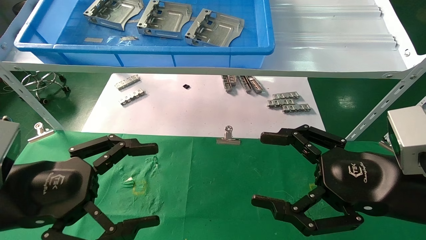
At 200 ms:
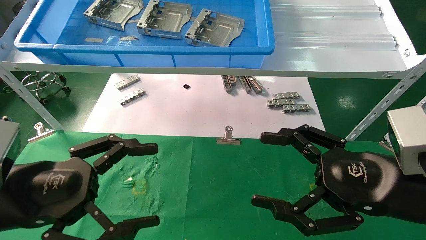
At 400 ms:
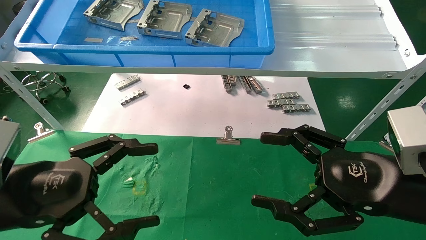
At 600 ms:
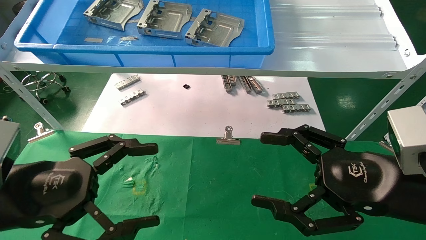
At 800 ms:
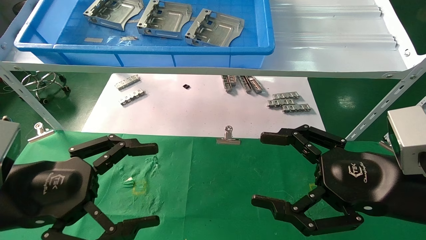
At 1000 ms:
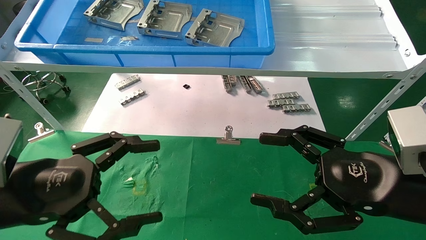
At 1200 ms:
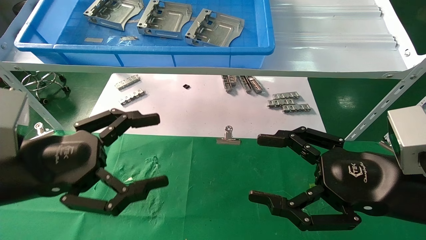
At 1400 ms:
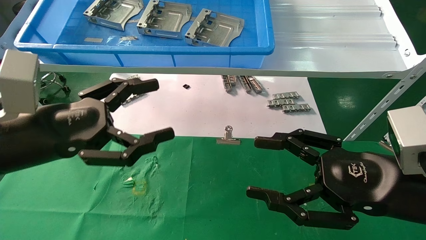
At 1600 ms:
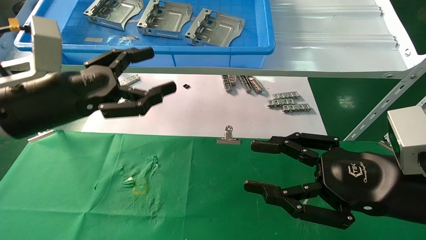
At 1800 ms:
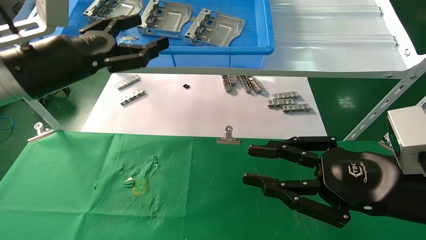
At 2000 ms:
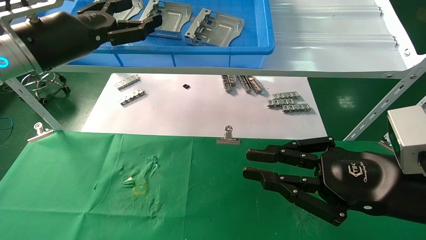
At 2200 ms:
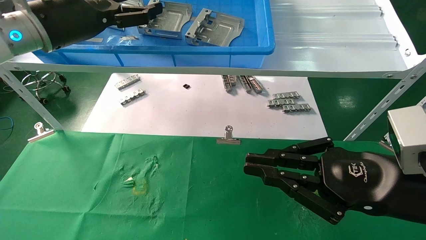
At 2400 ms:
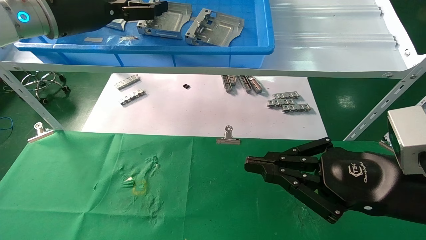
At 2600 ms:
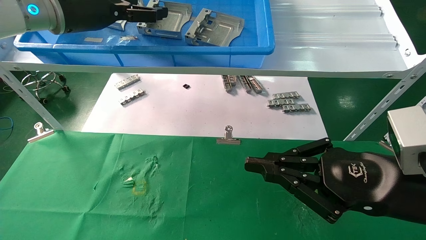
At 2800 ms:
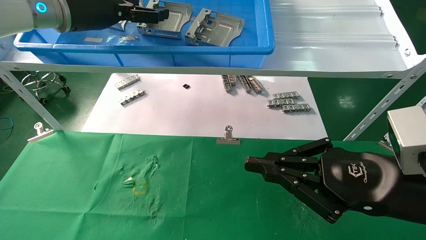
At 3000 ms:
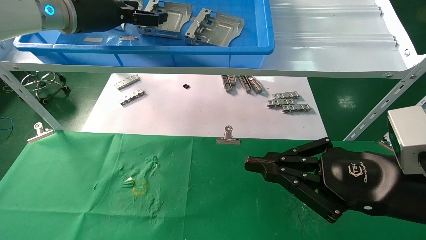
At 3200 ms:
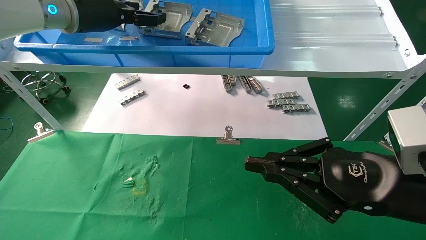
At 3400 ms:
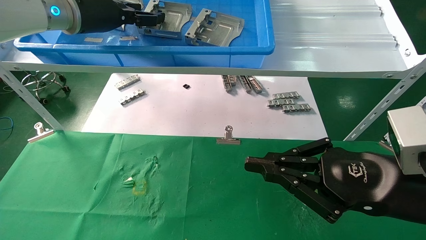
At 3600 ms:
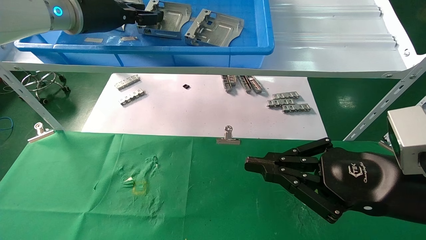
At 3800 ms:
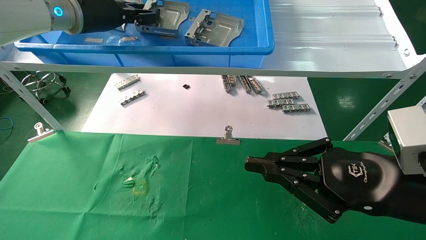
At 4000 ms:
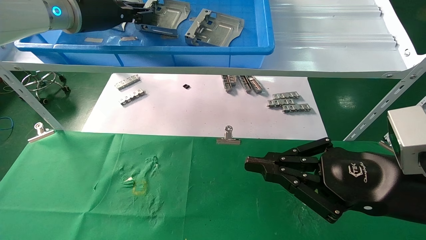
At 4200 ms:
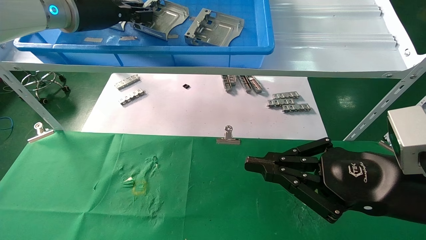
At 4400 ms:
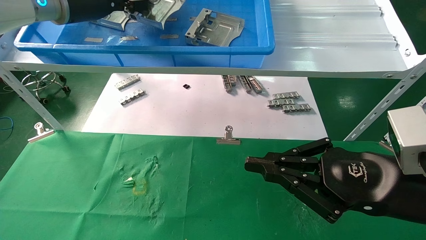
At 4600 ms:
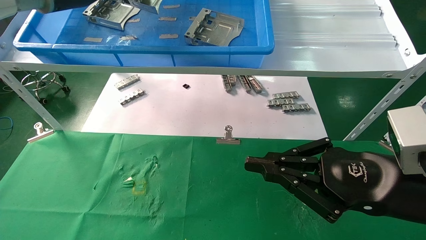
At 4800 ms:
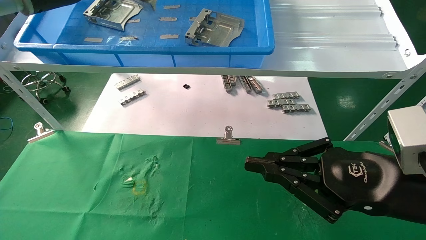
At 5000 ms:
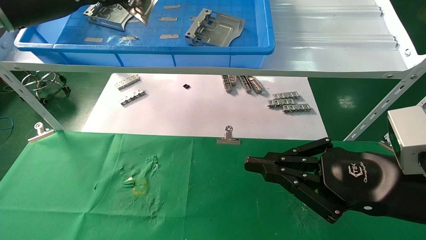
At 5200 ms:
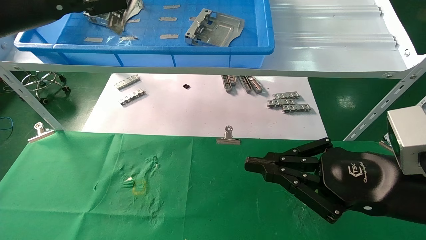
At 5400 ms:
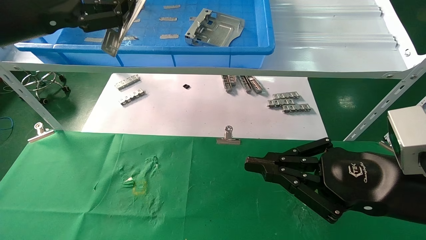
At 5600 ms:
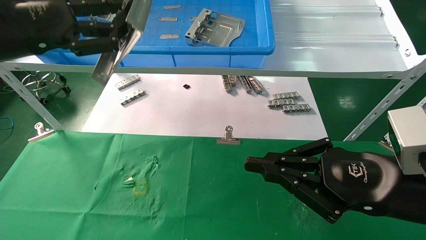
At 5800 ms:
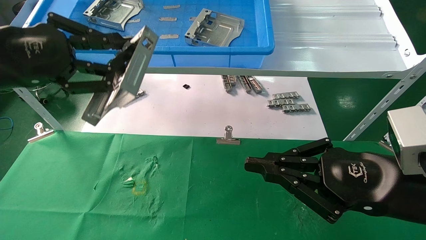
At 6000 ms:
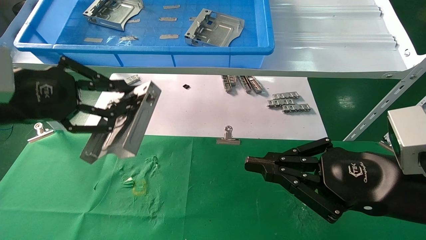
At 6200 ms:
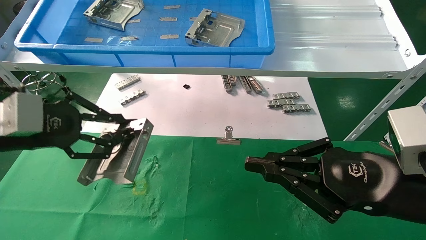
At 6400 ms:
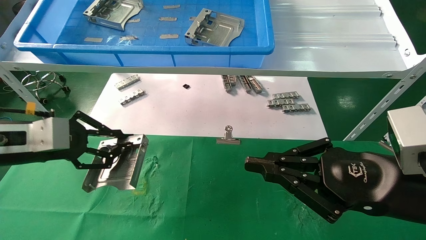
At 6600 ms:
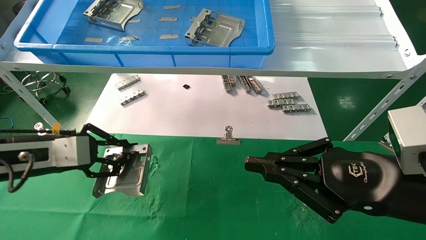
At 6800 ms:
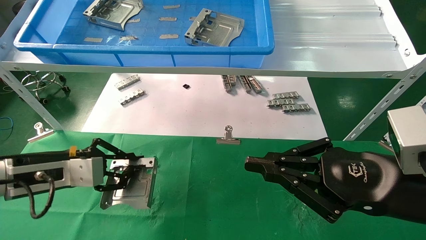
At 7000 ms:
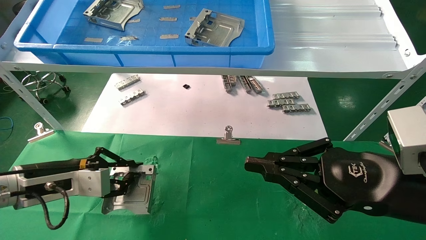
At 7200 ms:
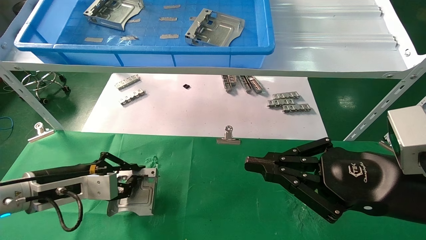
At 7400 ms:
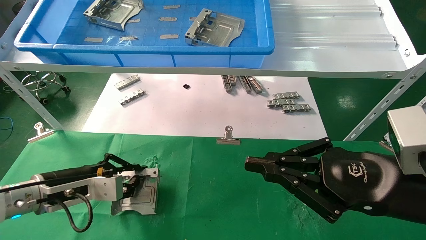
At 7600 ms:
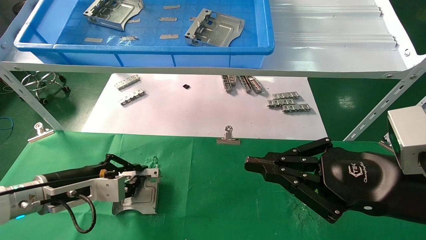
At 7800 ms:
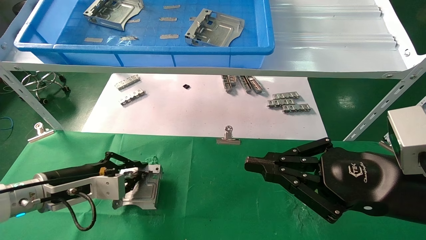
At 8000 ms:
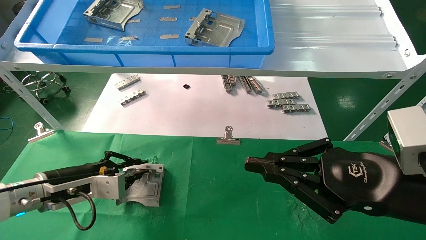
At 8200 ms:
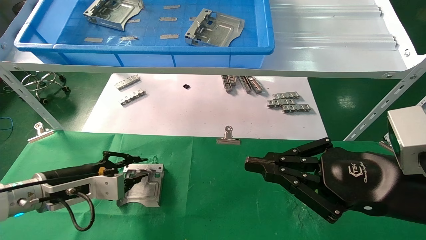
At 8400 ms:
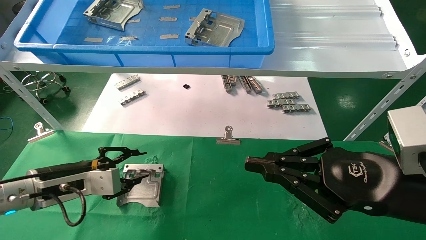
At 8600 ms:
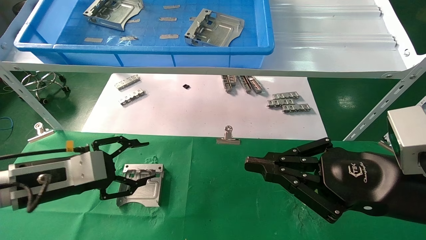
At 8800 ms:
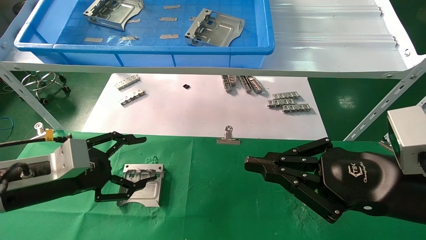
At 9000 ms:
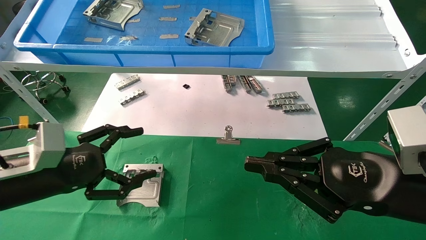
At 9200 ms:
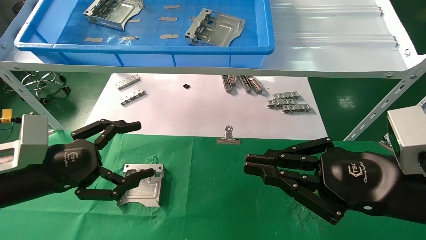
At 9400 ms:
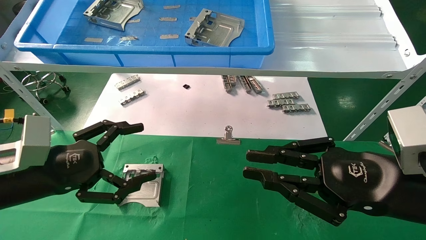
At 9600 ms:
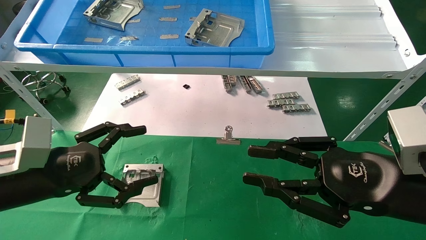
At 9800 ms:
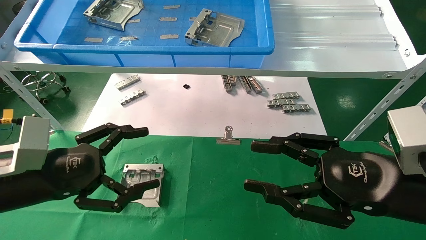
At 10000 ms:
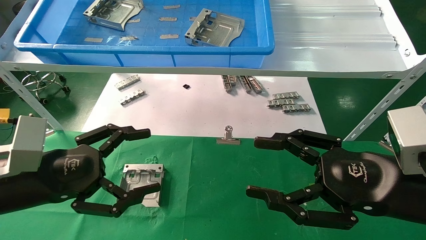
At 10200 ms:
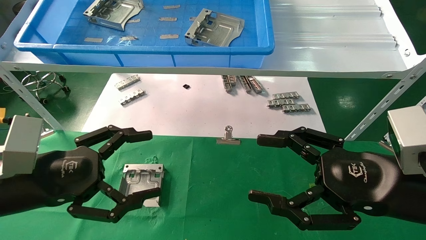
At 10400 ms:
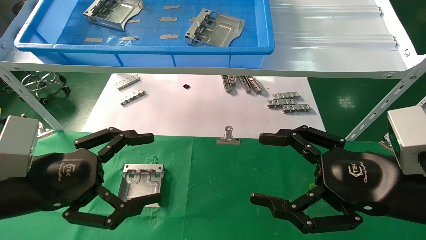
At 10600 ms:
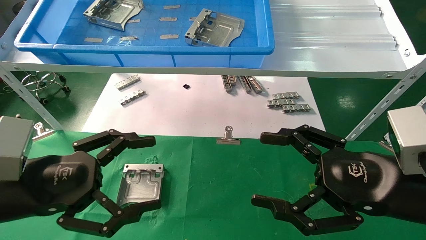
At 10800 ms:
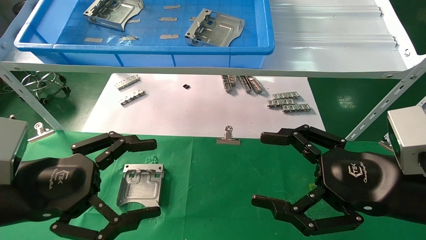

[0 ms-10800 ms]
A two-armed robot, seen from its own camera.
Task of the whole recording: use the mechanical arm to pick up the parts and place them on the table.
Step, 1400 ms to 4000 ms: Pick up the hard drive bracket from the feeding area.
Step, 4200 ms to 8000 ms: Place the hard drive bracket into the box.
0 ms to 1600 ms: The left gripper travels forward and upward by some 10 cm.
1600 ms to 3000 ms: The left gripper shifts some 20 cm upward and forward; the right gripper closes its fingers.
3000 ms to 4600 ms: The left gripper closes.
4600 ms to 6200 ms: The left gripper shifts about 20 cm downward and backward.
6200 ms to 7800 ms: The left gripper goes some 15 cm downward.
7800 ms to 9200 ms: The left gripper goes about 10 cm backward and upward, and opens its fingers.
9200 ms to 10800 ms: The left gripper shifts roughly 5 cm backward, while the right gripper opens.

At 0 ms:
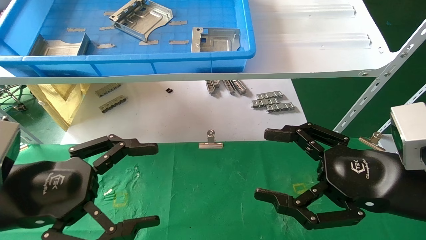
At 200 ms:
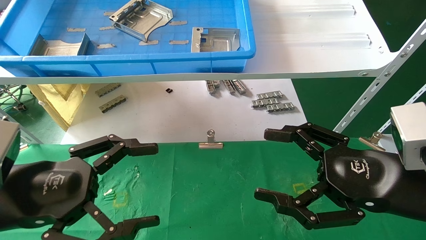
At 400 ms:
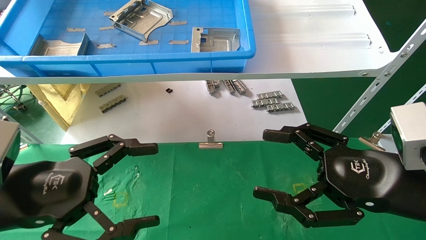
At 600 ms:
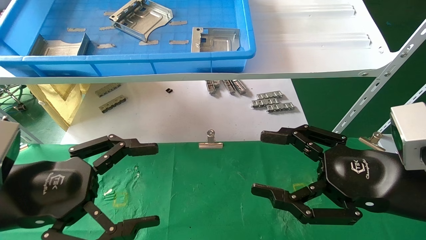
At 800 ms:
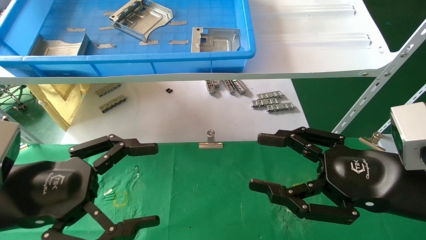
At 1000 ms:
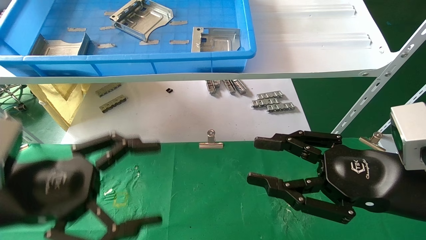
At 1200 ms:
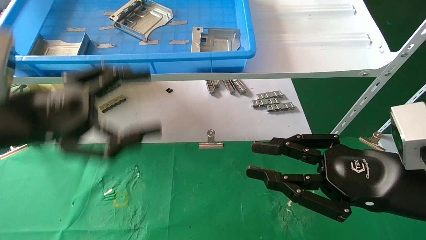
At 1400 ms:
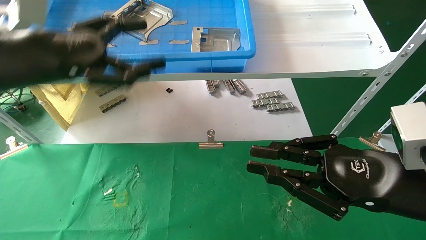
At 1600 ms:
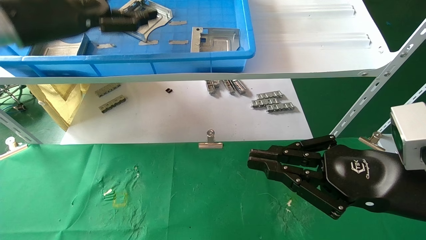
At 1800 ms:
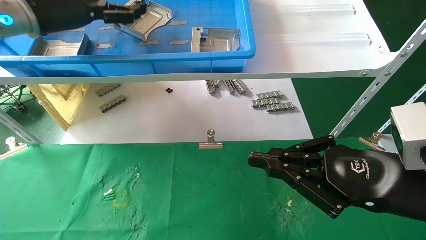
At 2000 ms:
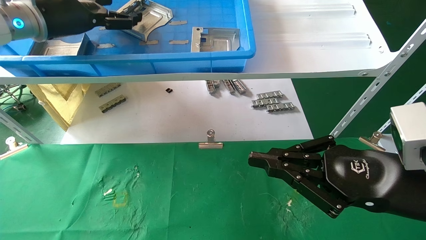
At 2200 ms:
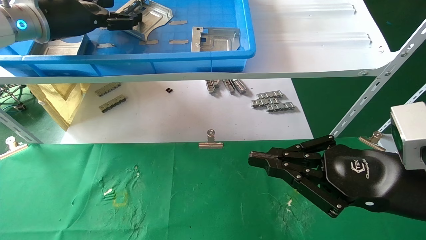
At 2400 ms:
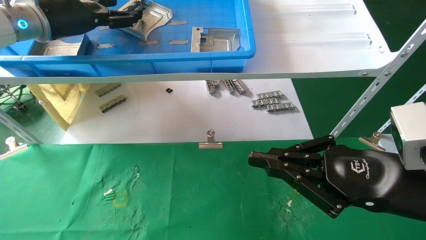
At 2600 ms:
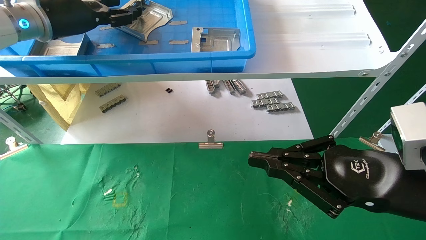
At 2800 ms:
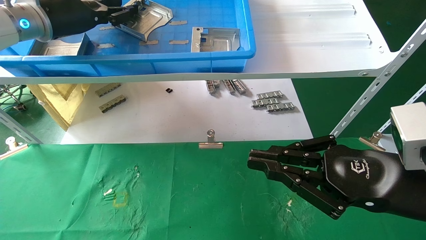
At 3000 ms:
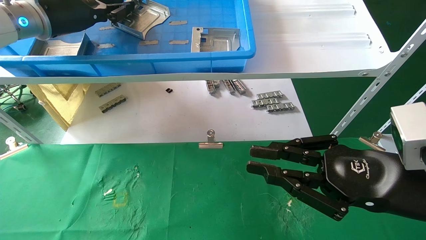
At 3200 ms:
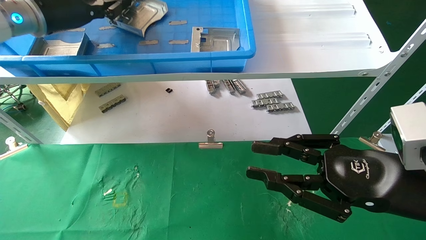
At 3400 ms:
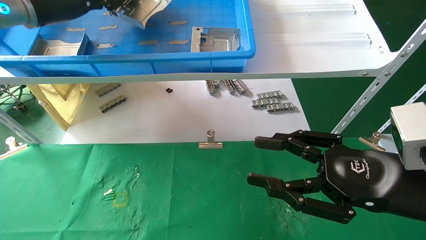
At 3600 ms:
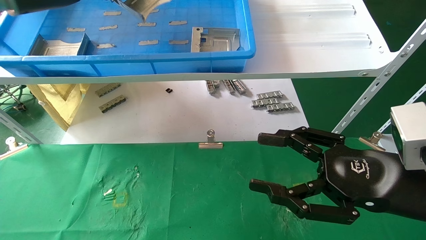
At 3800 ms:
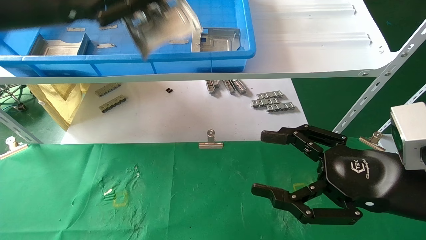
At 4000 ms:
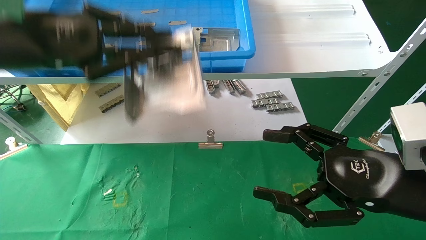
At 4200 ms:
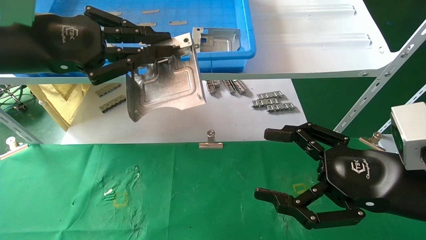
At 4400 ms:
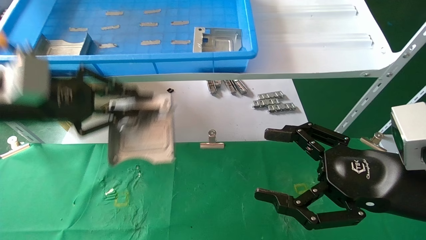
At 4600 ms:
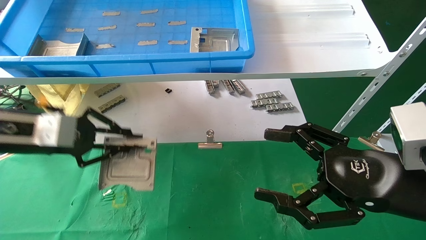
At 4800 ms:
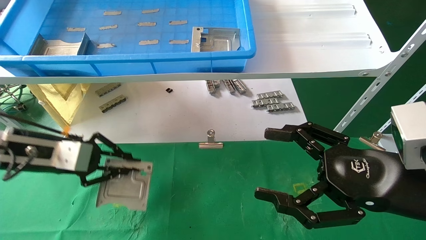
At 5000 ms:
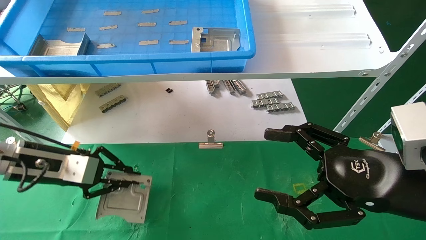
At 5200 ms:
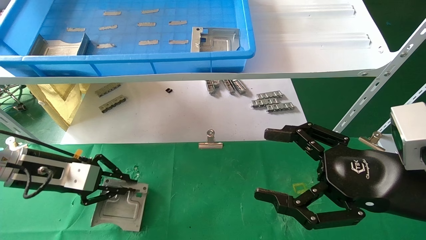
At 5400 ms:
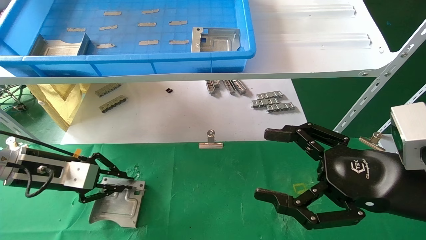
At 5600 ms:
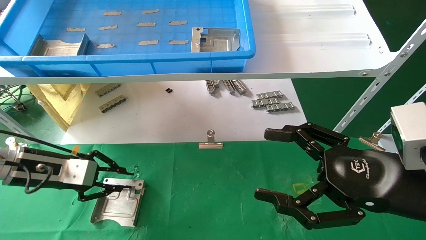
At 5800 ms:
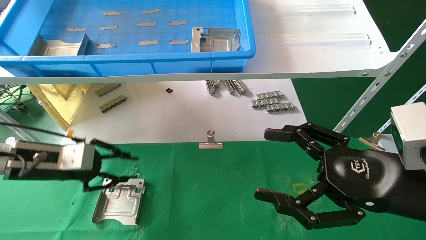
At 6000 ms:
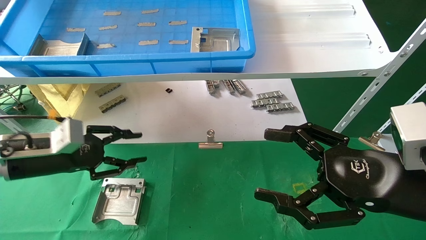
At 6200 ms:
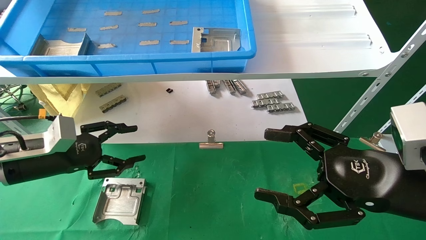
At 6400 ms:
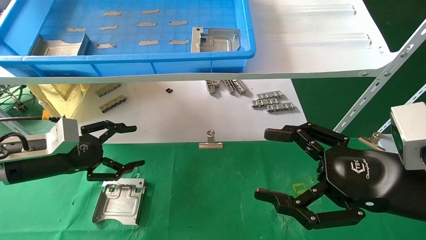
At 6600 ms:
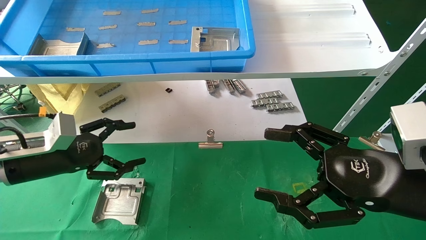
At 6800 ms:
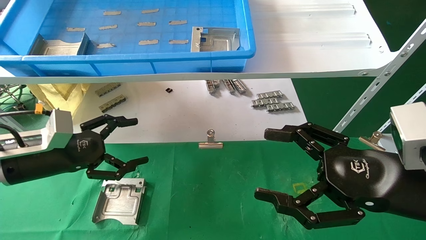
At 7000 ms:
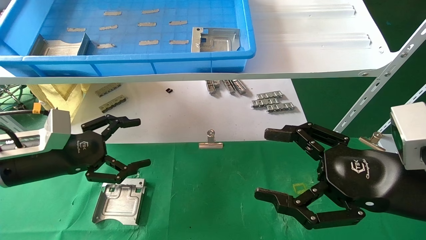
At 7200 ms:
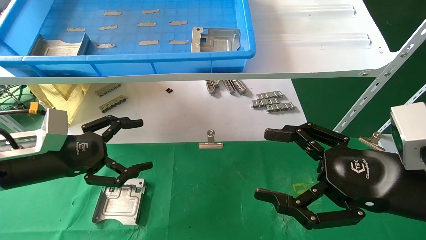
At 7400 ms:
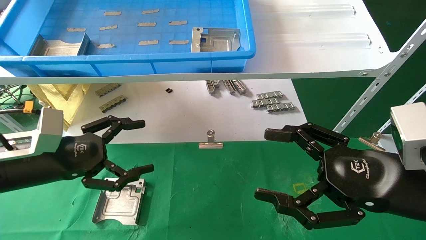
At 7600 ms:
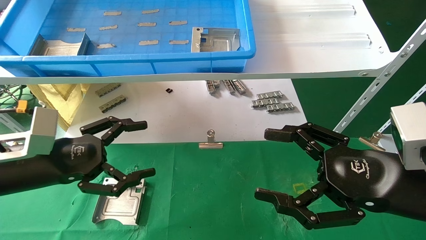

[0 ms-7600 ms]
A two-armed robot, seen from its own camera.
Task of the whole recording: use the mechanical arm to pick up the parts and place them on the table.
Step, 1400 ms to 3200 ms: Pick up the hard drive bracket from the feeding area.
Step, 3400 ms to 5400 ms: Place the hard drive bracket into the box.
0 ms to 1600 ms: The left gripper is displaced upward and forward by some 25 cm; the right gripper closes up.
1600 ms to 3000 ms: The left gripper goes roughly 5 cm forward, and closes up.
3000 ms to 4600 ms: The right gripper opens; the left gripper is displaced downward and backward by about 20 cm.
4600 ms to 6000 ms: The left gripper goes some 5 cm downward.
6000 ms to 7600 ms: The left gripper travels backward by some 5 cm, and opens up.
